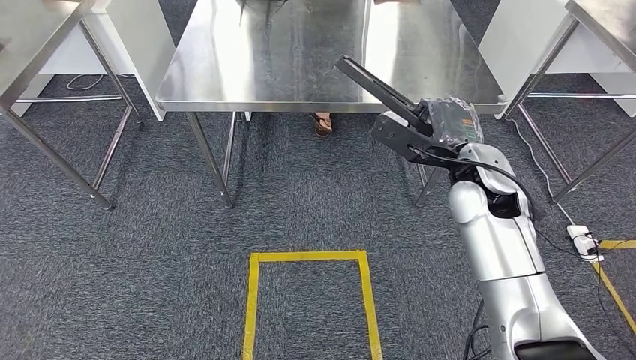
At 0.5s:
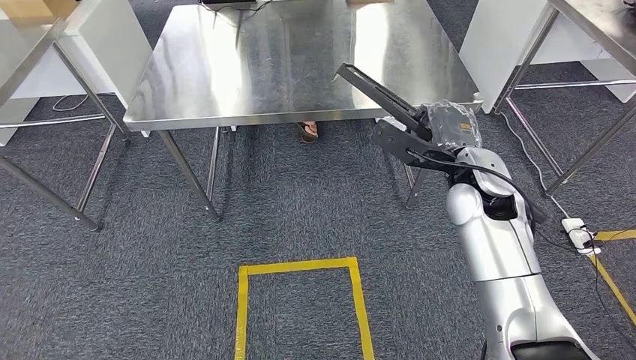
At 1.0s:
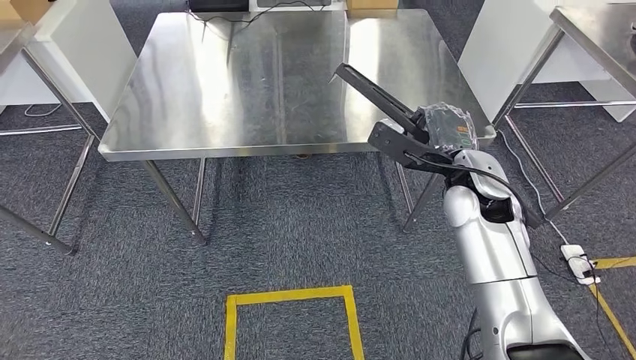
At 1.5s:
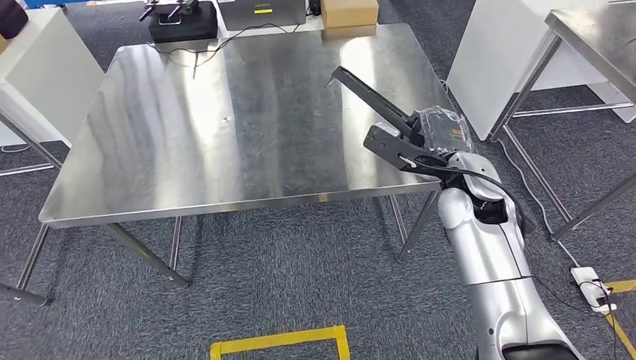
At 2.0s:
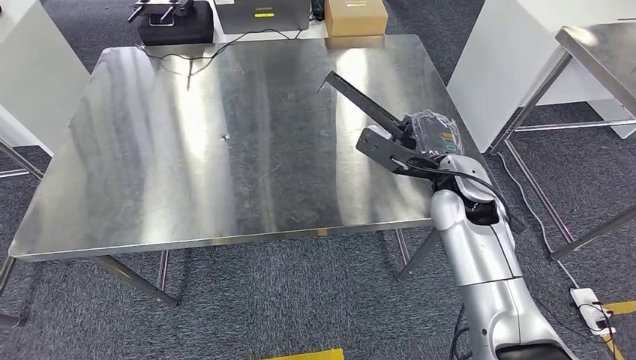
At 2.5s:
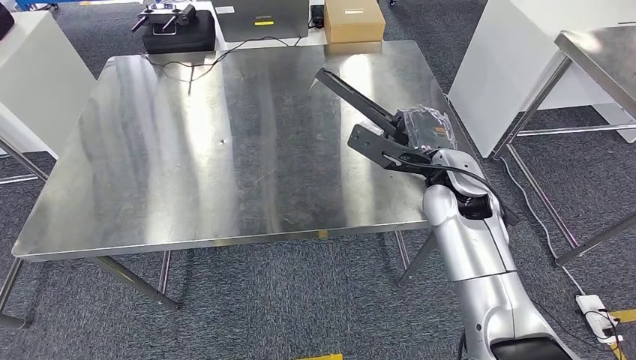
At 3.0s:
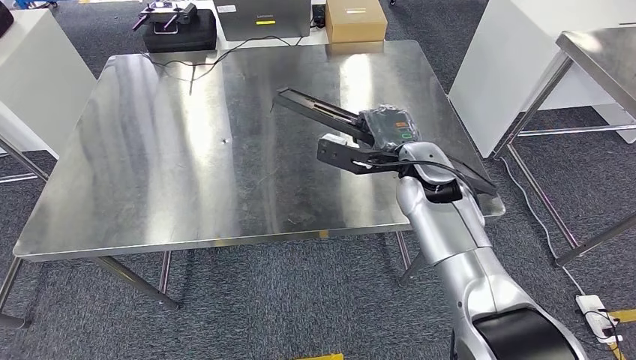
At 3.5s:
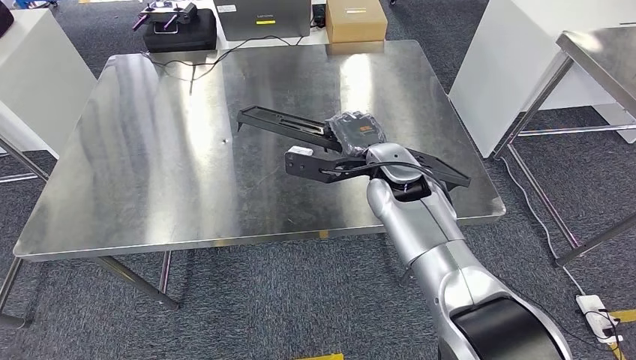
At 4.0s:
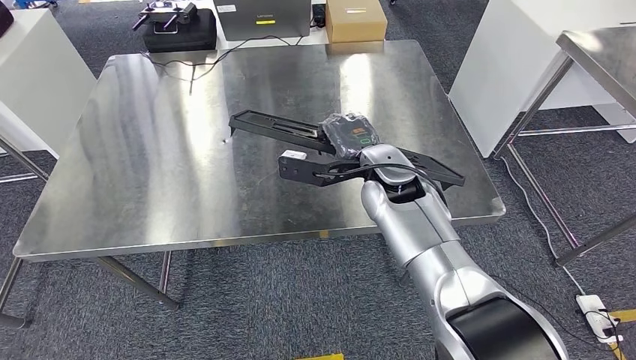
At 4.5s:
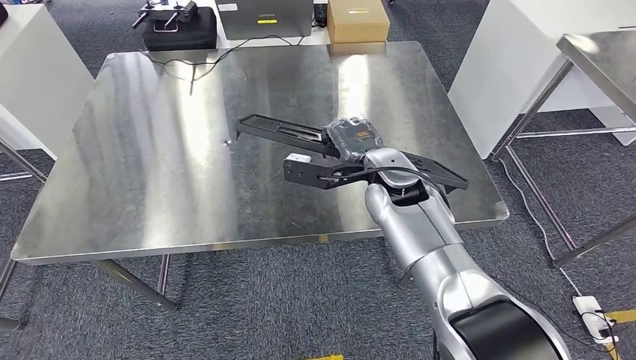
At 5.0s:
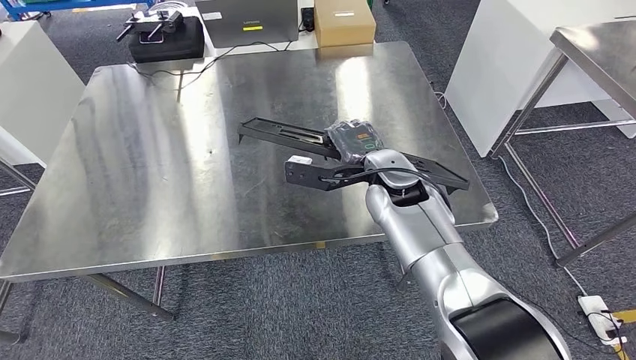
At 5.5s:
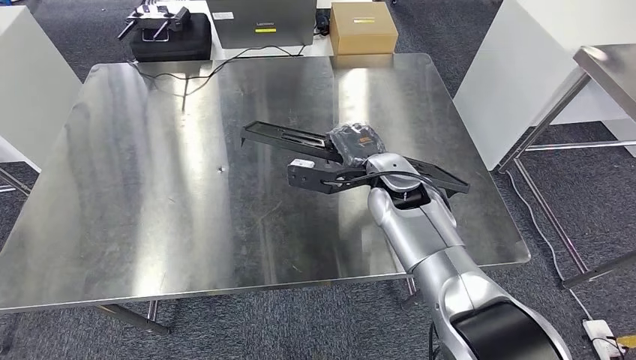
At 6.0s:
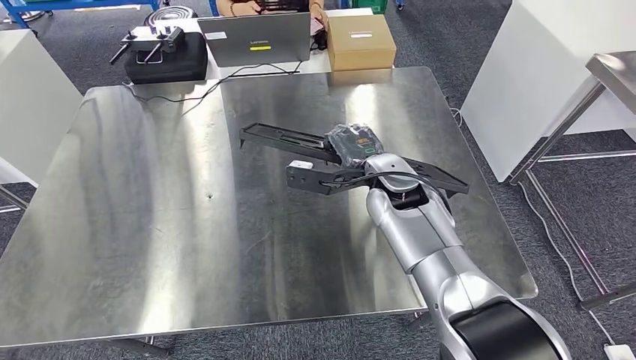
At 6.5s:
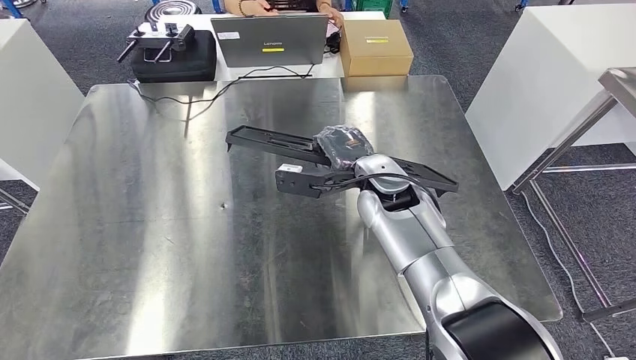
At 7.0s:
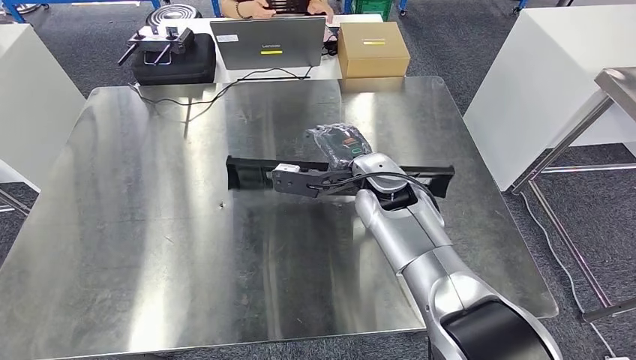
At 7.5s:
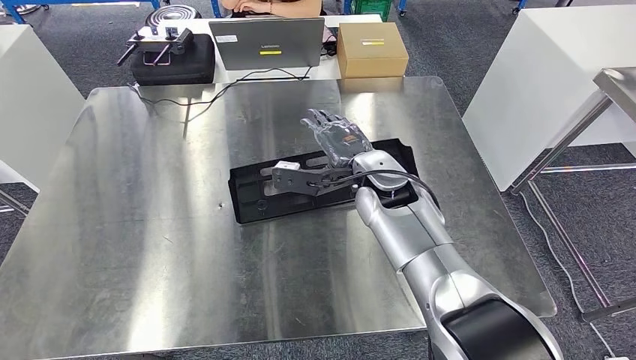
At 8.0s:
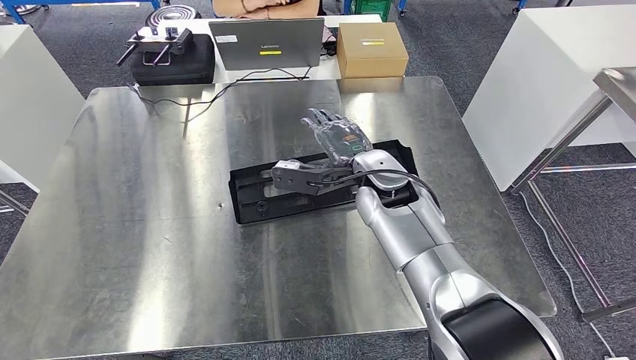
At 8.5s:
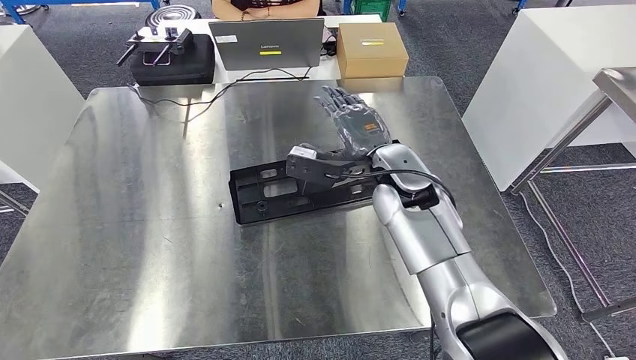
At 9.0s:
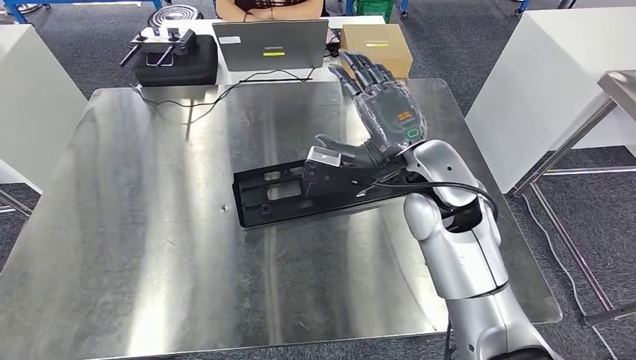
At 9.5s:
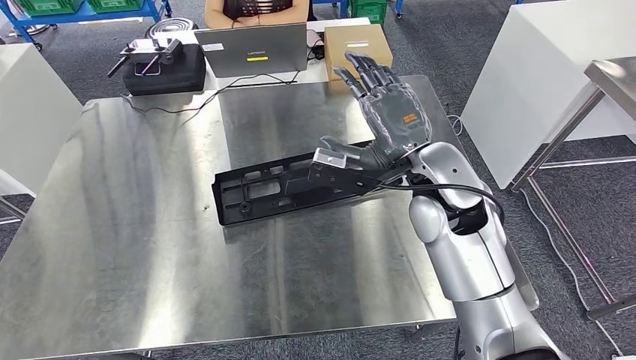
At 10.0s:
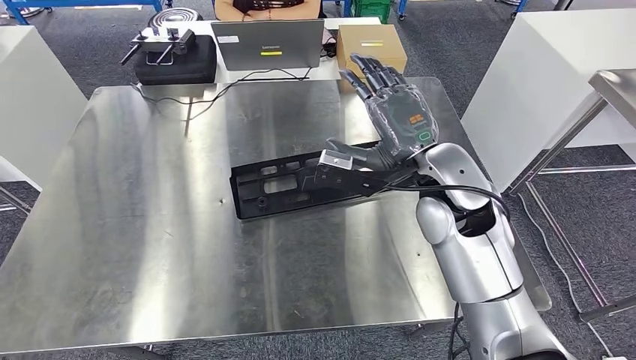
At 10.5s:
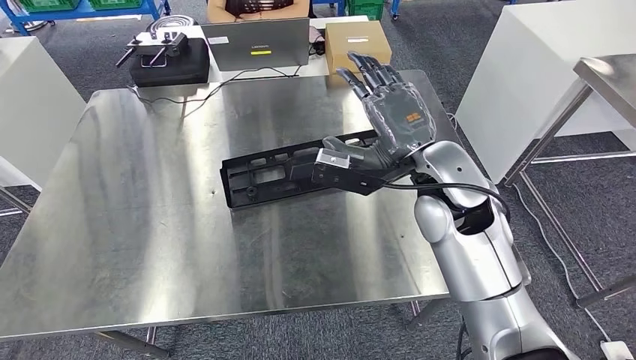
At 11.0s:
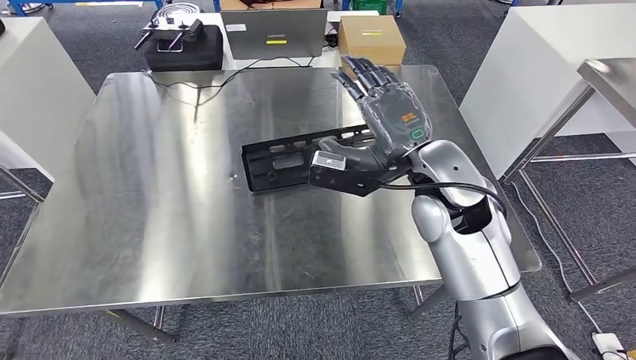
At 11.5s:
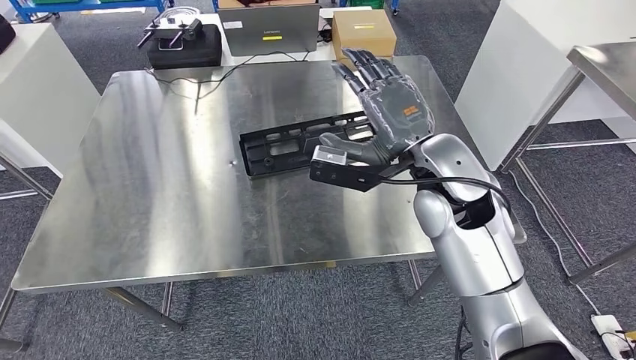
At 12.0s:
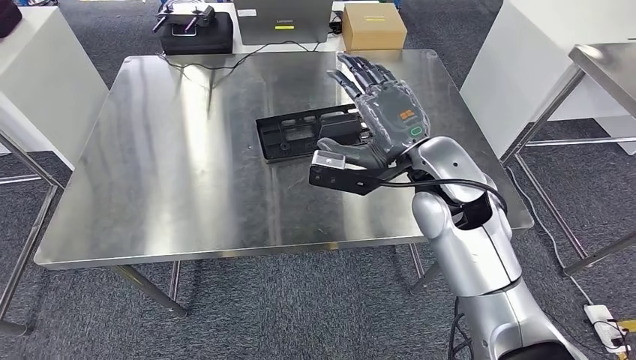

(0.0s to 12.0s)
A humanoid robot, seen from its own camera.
Step, 0.0s - 9.5s: Insert the large material into the corresponding slot on the workbench.

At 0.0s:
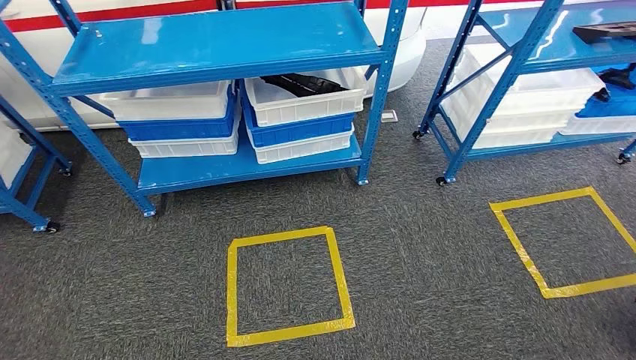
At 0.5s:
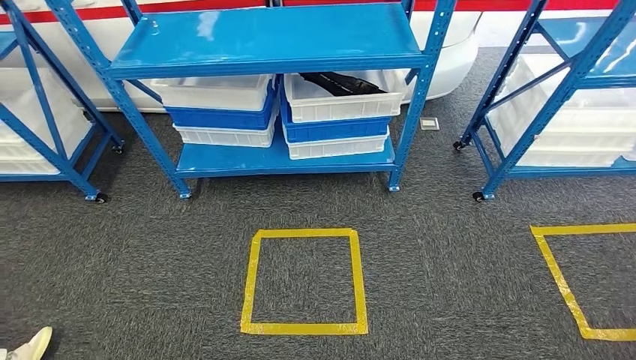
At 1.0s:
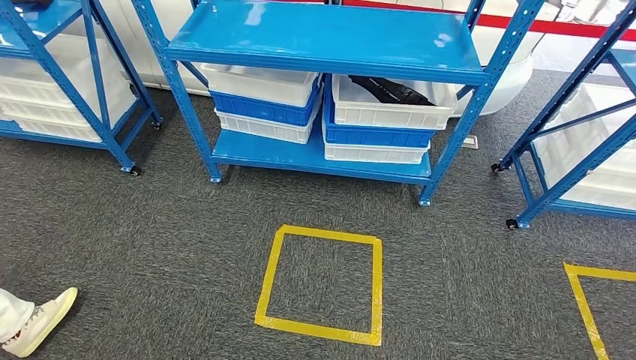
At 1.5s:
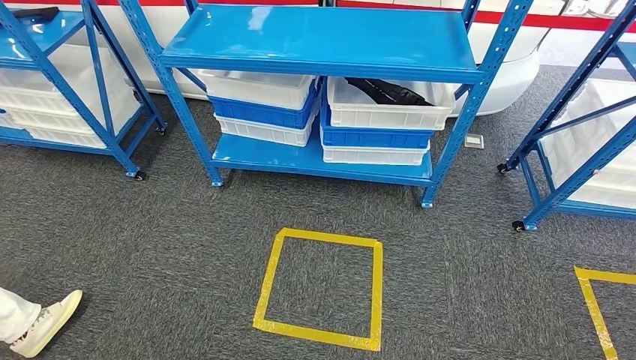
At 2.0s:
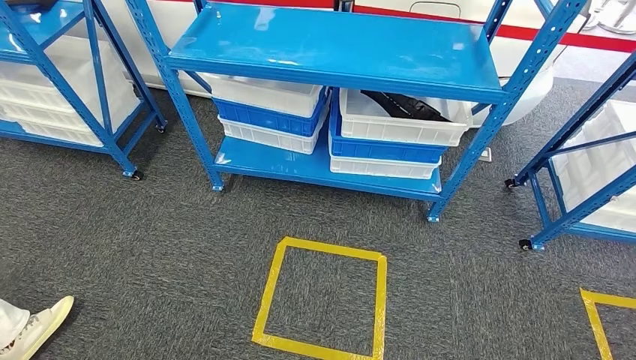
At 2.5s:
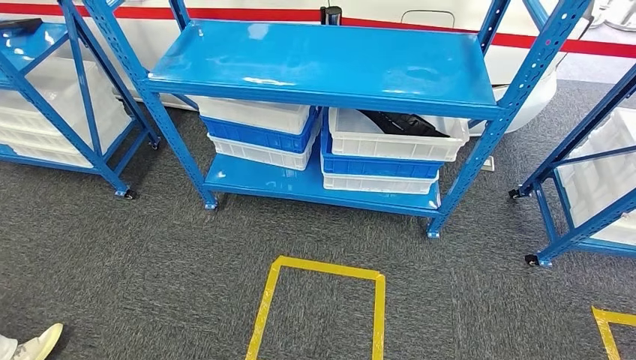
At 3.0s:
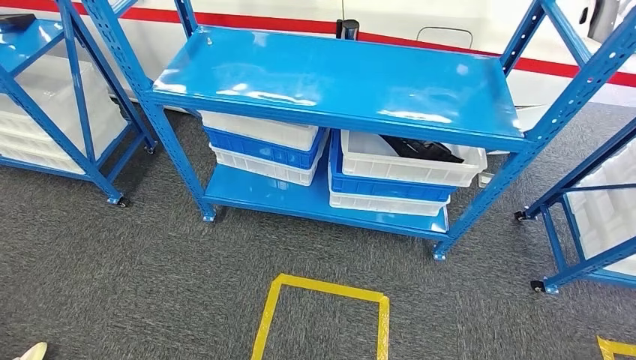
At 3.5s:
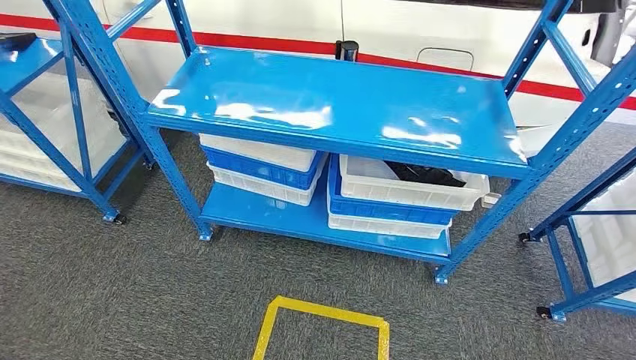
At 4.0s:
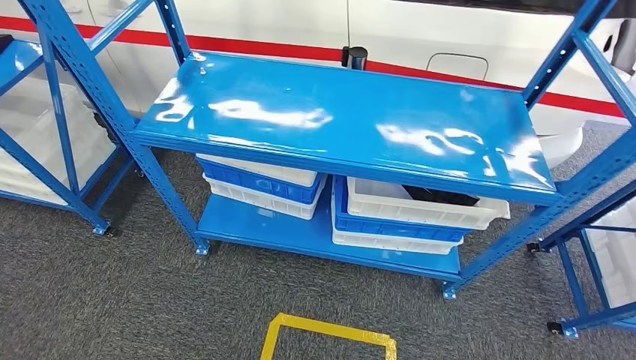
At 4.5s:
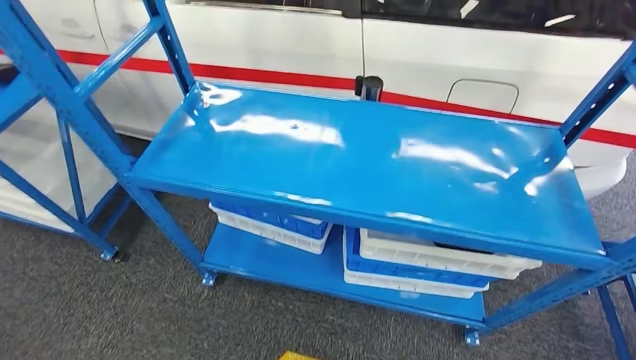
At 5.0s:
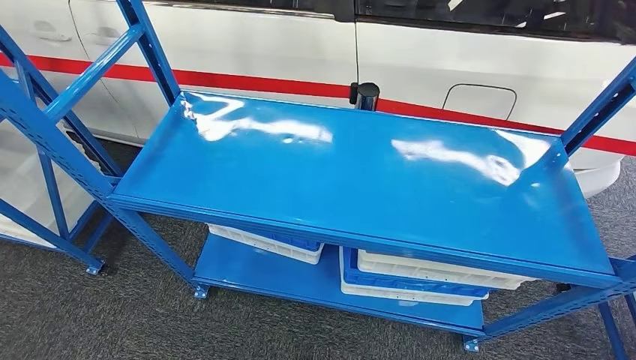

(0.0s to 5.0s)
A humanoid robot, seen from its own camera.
Step, 0.0s - 5.0s: Move to the initial position of the shelf.
